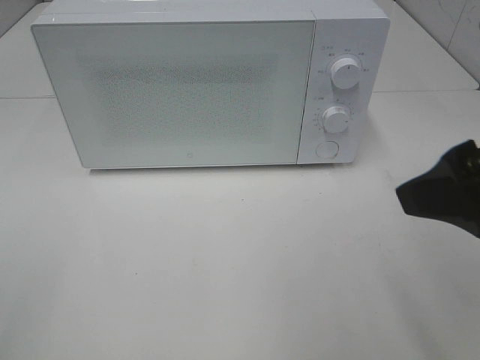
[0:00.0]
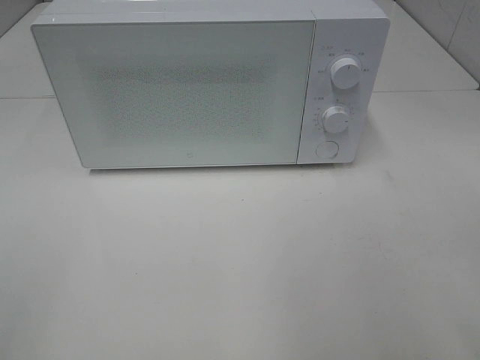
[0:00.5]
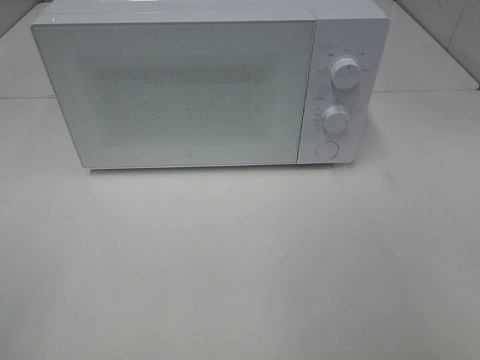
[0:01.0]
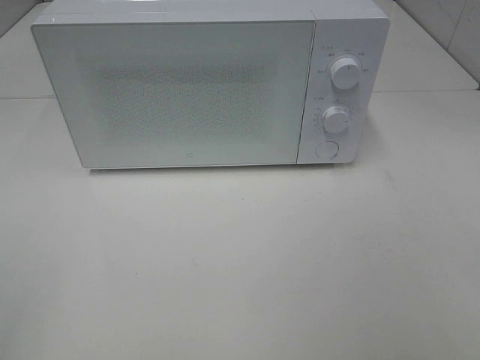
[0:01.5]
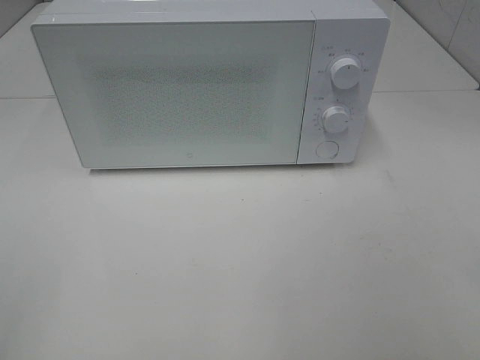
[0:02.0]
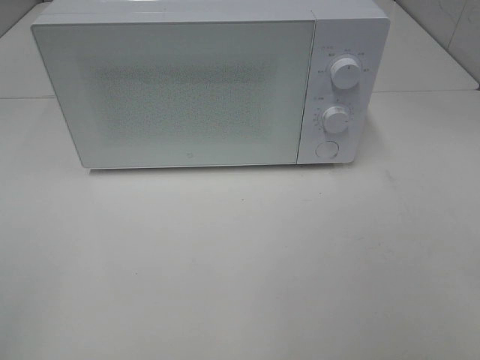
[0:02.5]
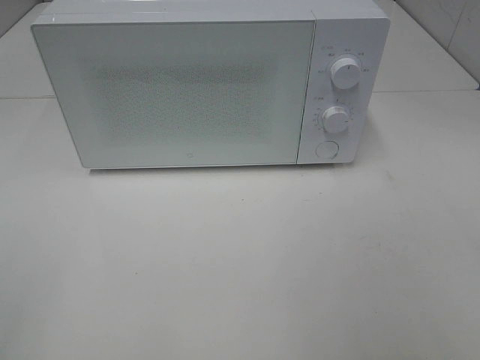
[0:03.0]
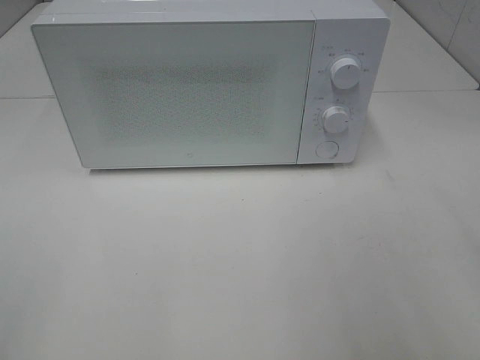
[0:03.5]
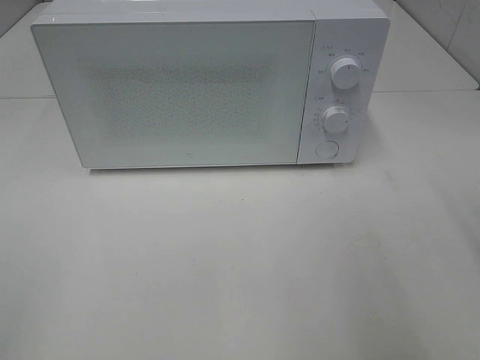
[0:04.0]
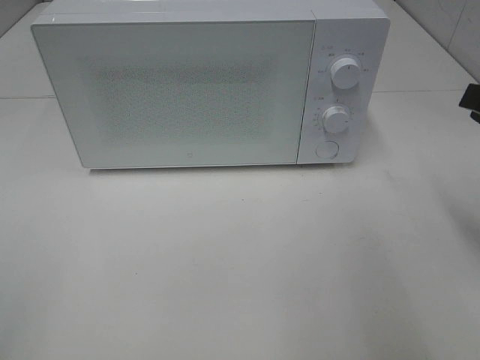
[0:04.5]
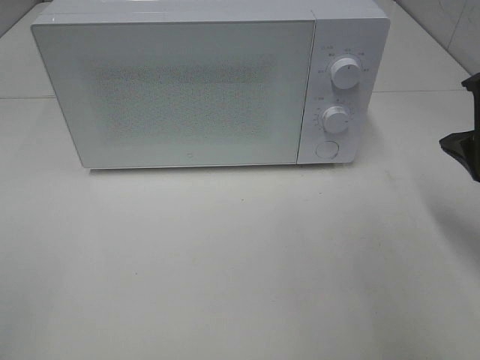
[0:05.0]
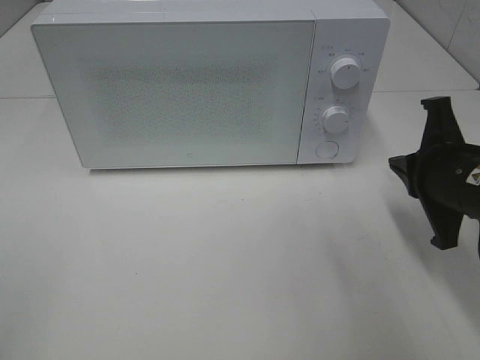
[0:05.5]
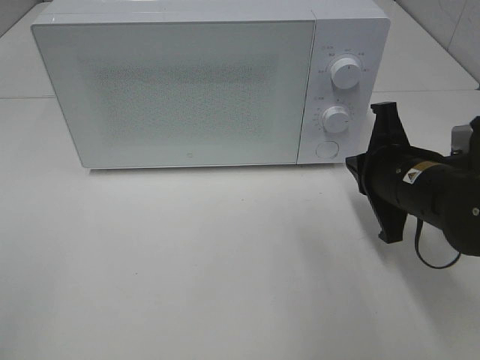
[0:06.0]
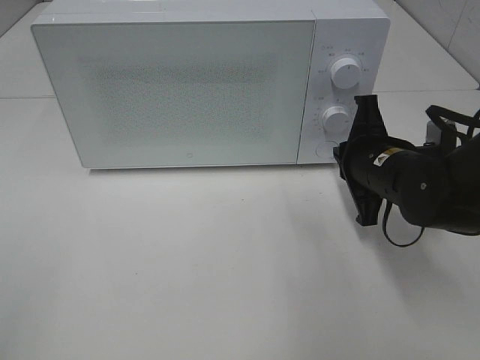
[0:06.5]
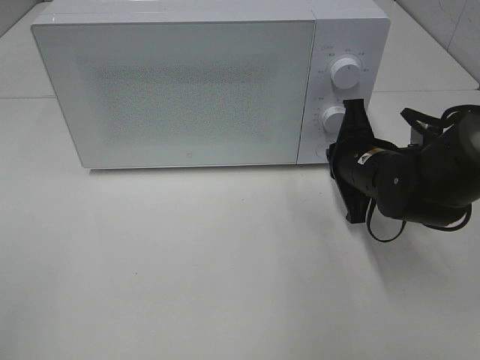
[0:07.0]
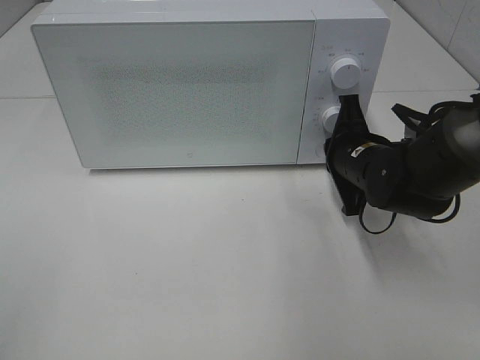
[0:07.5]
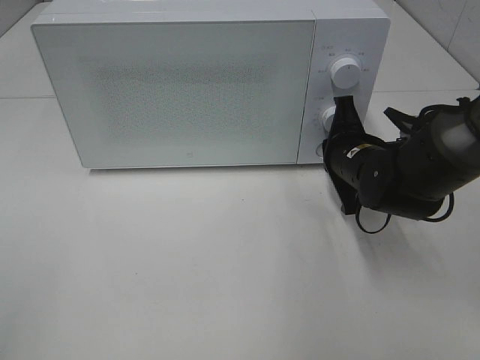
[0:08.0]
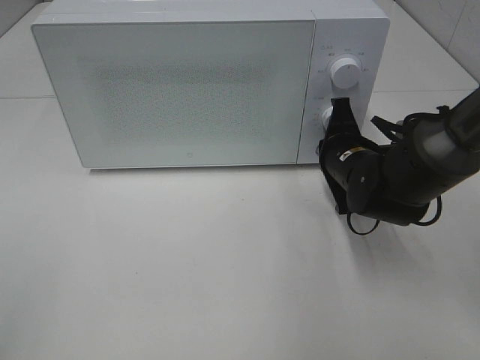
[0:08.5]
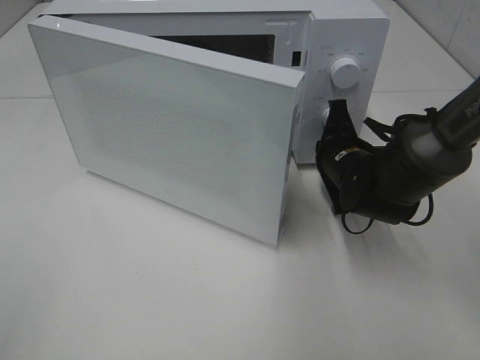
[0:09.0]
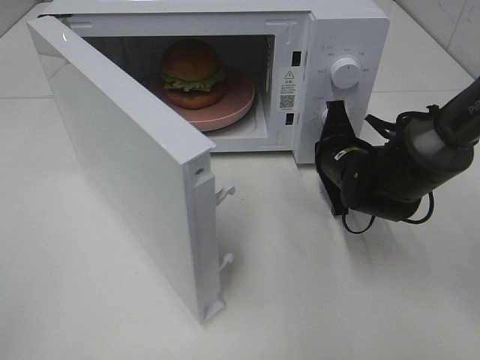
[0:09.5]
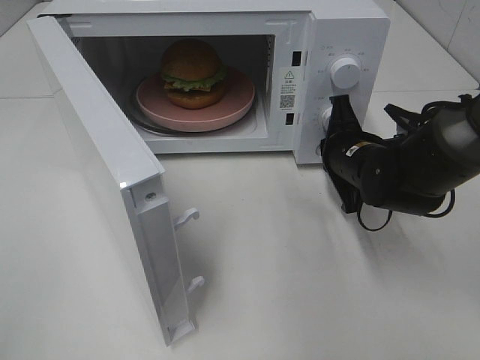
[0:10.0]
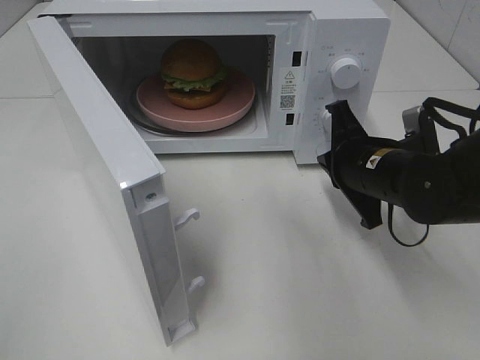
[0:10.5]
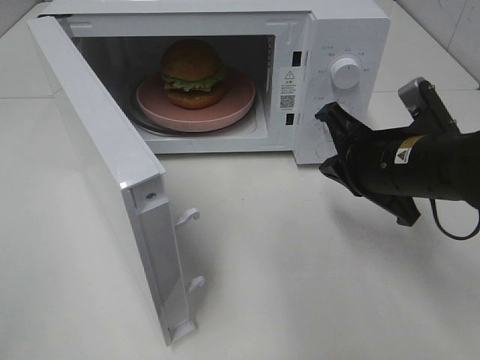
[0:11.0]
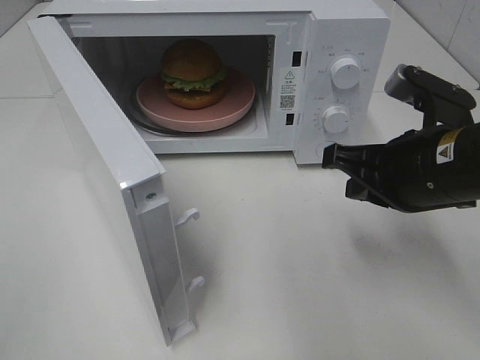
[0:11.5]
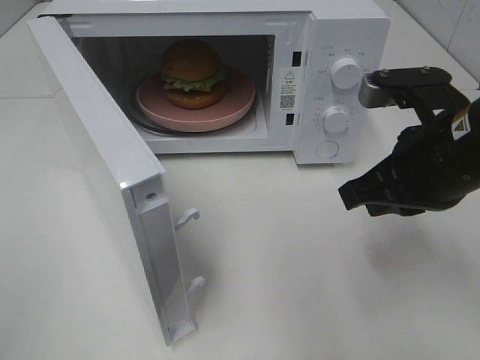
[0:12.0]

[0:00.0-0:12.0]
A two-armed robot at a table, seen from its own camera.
Task of the whole recording: Heat the burger.
Step, 0:00.0 to 0:10.0: Right hand: press the switch.
0:00.0 to 0:02.0: The right gripper shifts about 15 cm backward and to the right.
0:04.0 to 0:06.0: The right gripper heads downward, forward and to the left, covering about 20 cm.
0:06.0 to 0:08.0: The right gripper goes some 5 cm forward.
0:10.0 to 0:12.0: The right gripper is displaced upward and backward by roughly 15 cm.

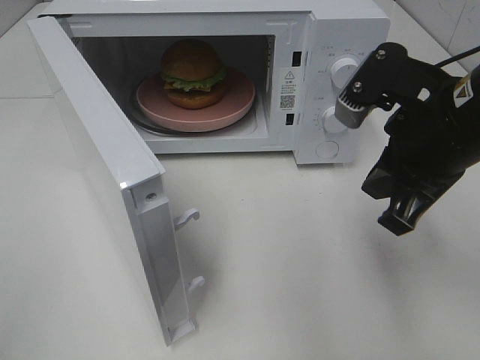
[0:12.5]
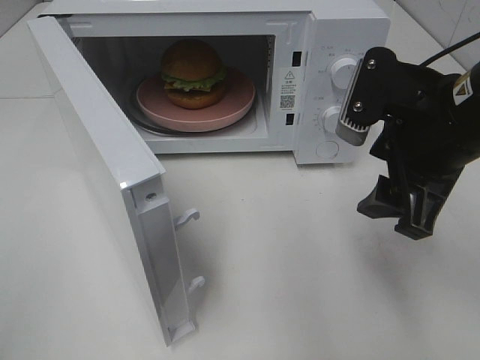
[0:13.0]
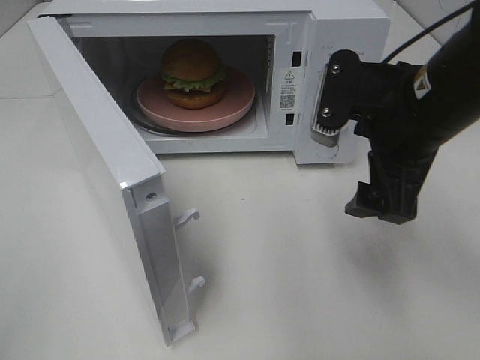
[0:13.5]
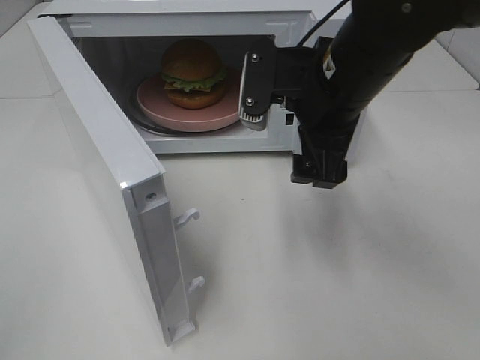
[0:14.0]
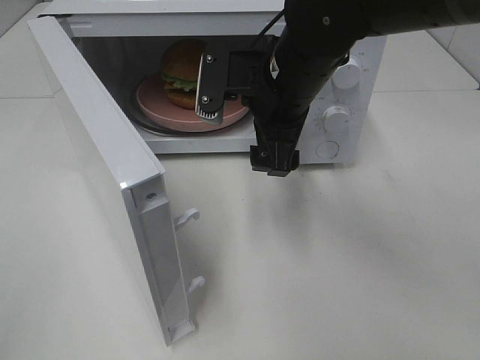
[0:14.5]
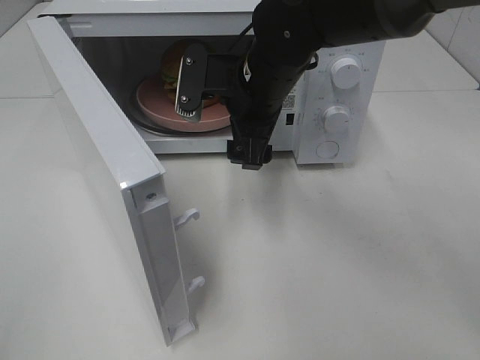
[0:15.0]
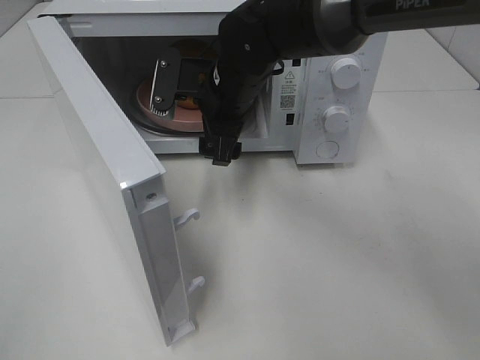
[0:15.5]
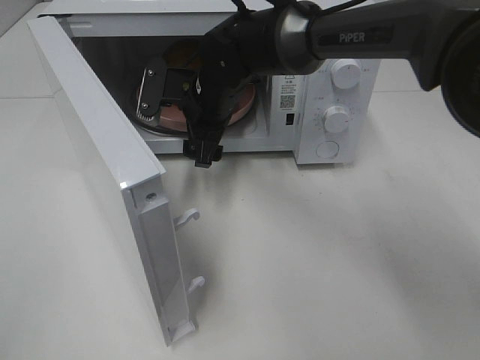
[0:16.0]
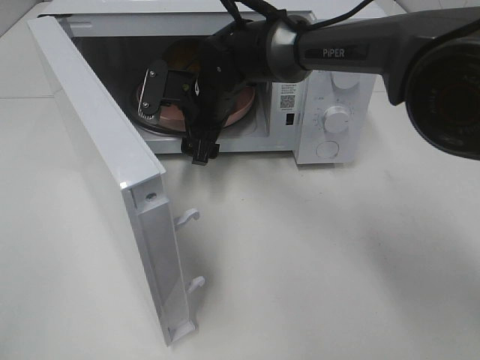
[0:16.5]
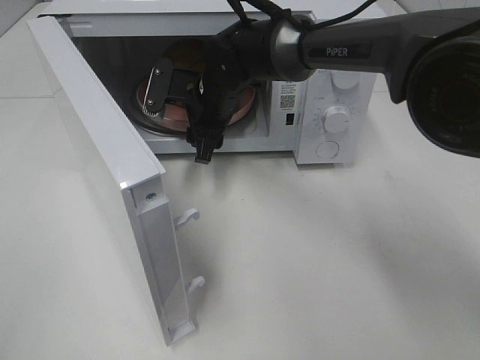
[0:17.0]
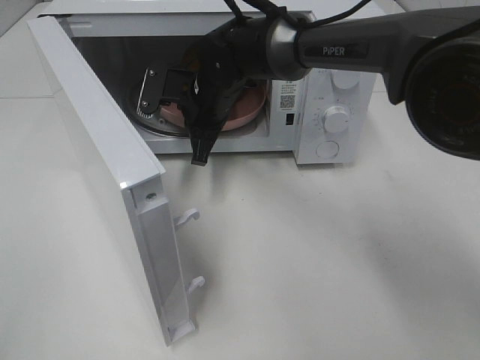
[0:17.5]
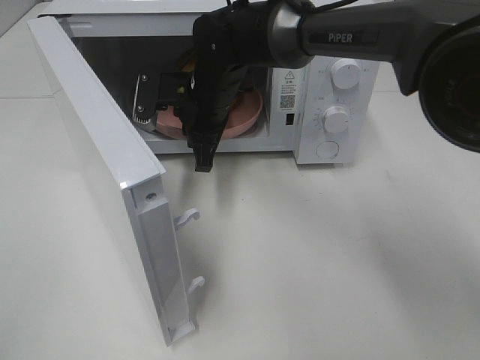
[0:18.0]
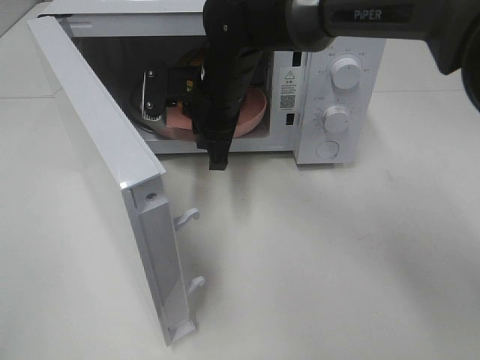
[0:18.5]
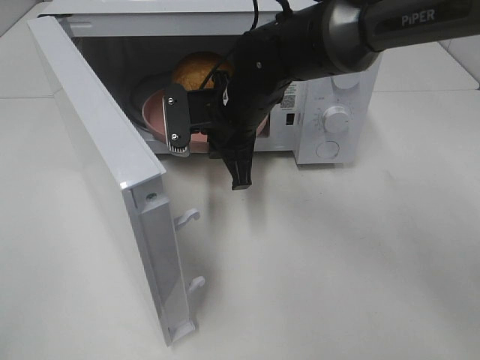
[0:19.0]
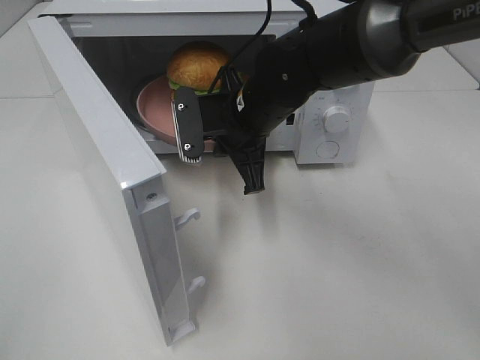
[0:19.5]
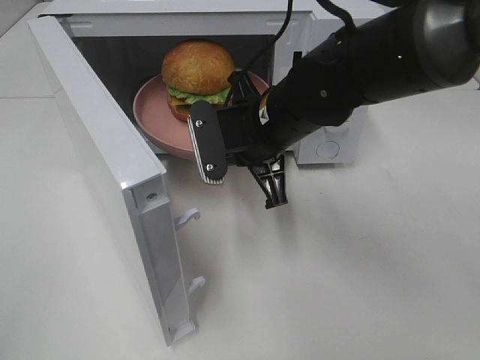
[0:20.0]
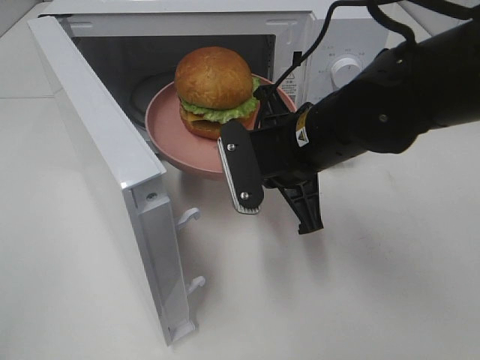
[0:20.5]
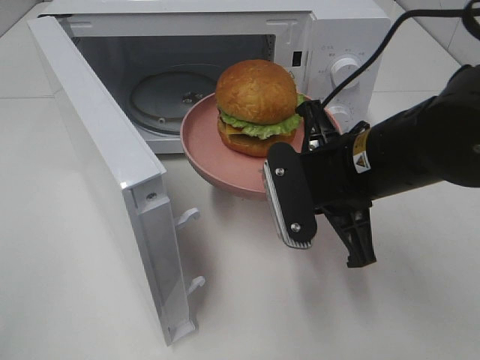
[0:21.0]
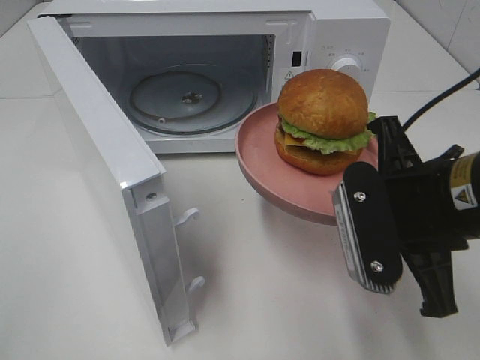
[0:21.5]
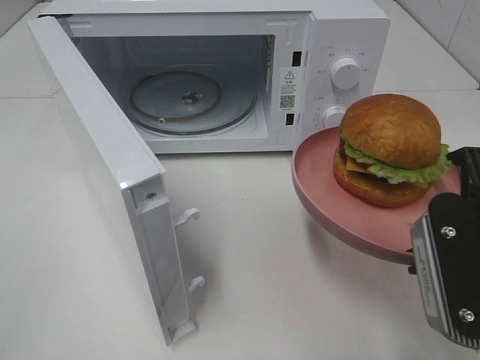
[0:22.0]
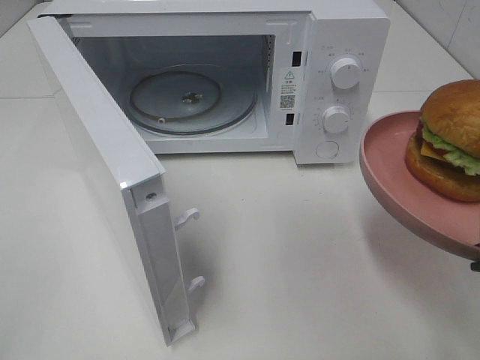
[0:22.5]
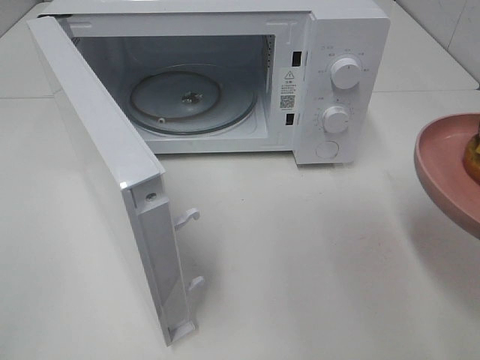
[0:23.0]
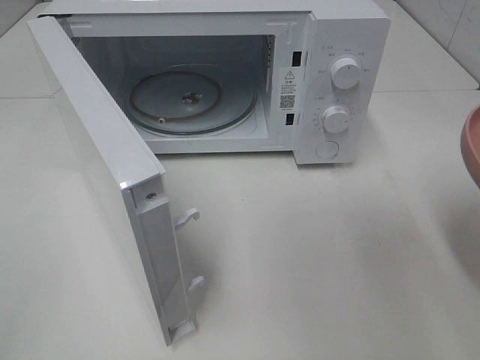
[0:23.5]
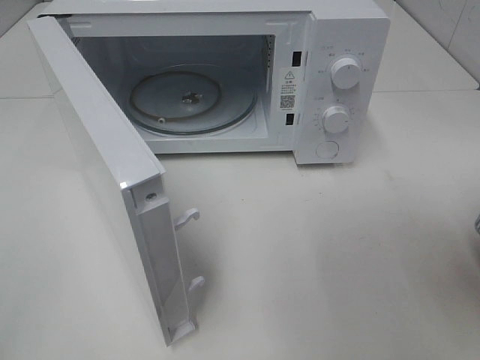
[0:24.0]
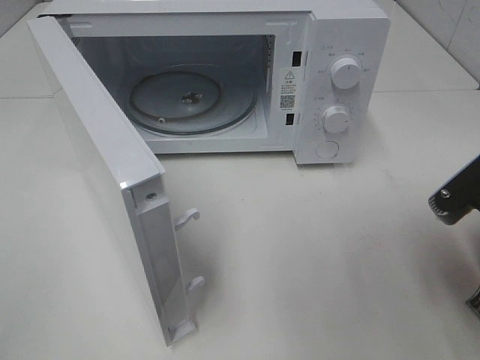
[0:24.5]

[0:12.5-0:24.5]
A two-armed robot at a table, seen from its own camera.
Task of the whole recording: Heat the burger.
Step, 0:12.5 to 0:17.0: Right hand: grab the plate with the hamburger.
0:12.5 to 0:14.5: The right gripper travels to the left and forward by roughly 15 cm, and opens its fingers.
0:14.5 to 0:16.5: The right gripper goes approximately 15 cm forward, to the left and downward.
0:16.5 to 0:18.5: The right gripper closes.
0:18.5 to 0:20.5: The right gripper is displaced backward and to the right by roughly 15 cm.
0:20.5 to 0:22.5: The right gripper heads backward and to the right, covering approximately 20 cm.
0:22.5 to 0:24.5: The right gripper changes place by some 5 cm.

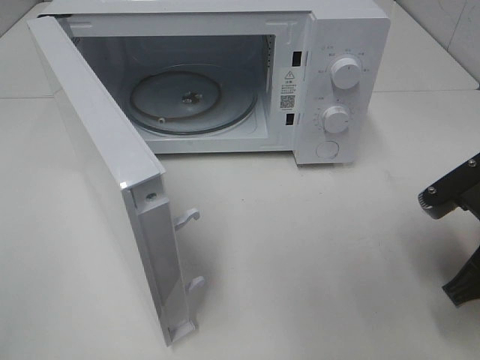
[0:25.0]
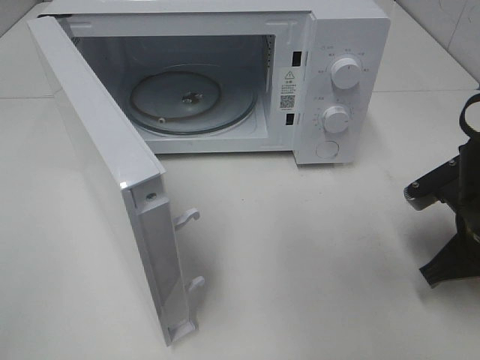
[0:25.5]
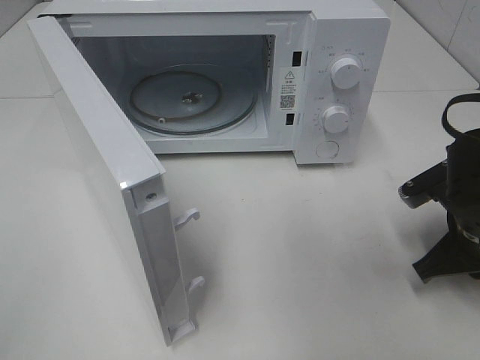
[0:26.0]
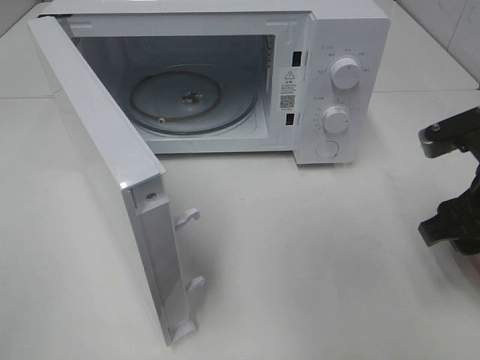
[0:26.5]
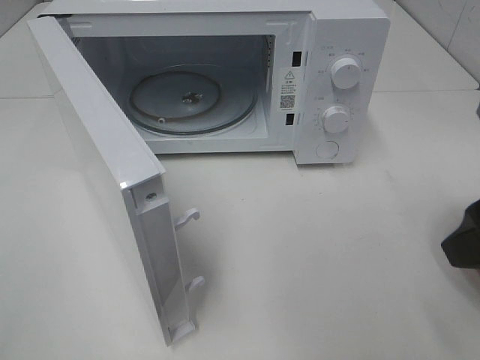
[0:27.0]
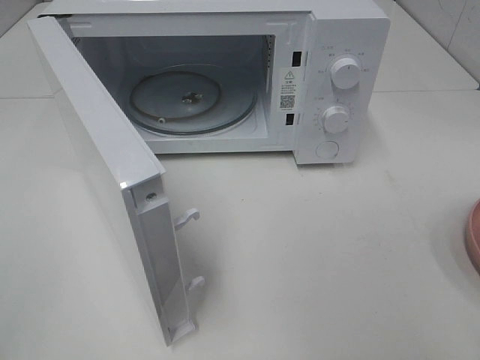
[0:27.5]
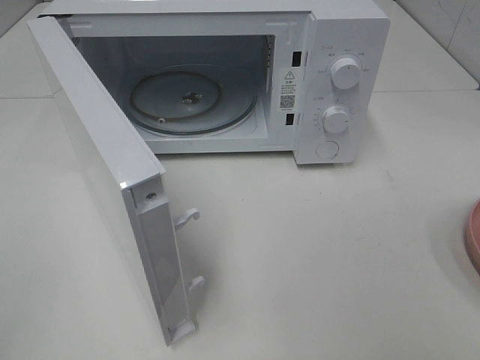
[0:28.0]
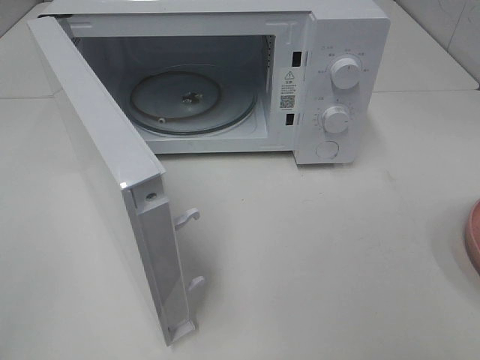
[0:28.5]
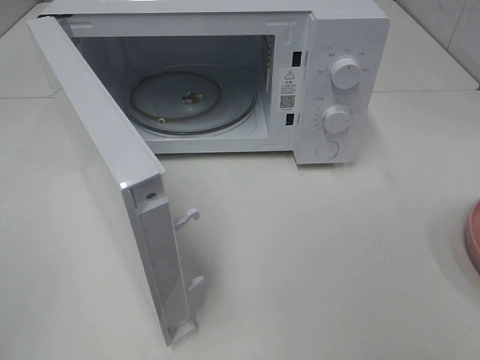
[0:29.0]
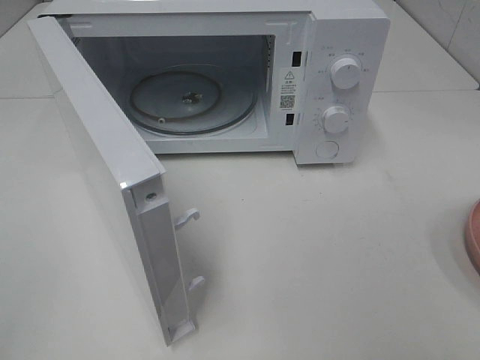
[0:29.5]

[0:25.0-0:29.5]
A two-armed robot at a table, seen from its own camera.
Task of the whole recording: Heat the burger.
0:25.0 to 0:27.0: The right gripper shifts approximately 10 cm upward, and opens.
0:27.0 to 0:29.5: The right gripper goes some 15 cm backward.
